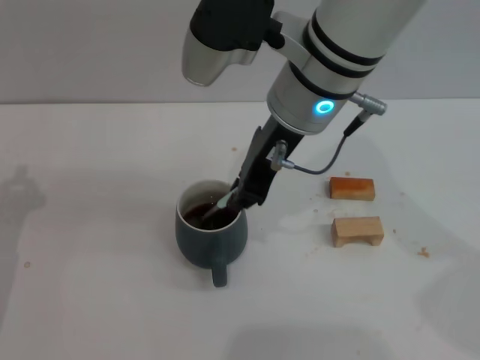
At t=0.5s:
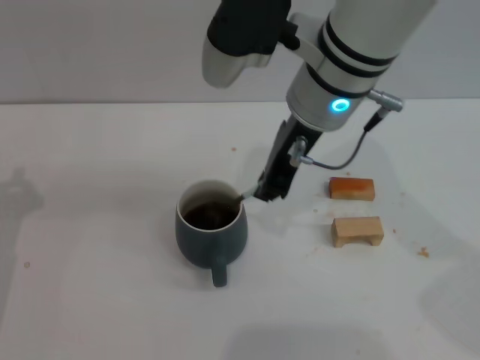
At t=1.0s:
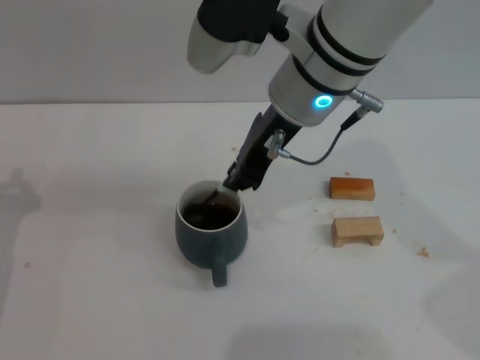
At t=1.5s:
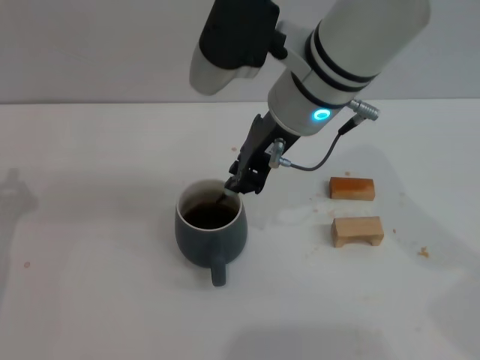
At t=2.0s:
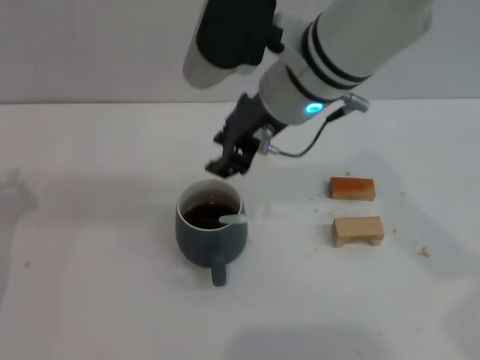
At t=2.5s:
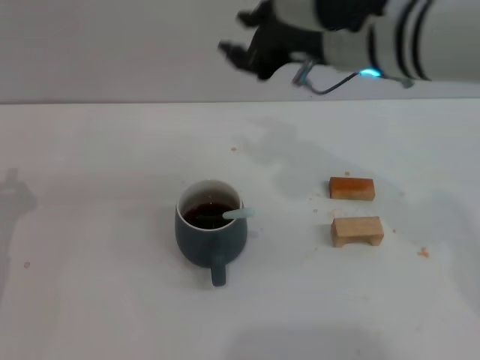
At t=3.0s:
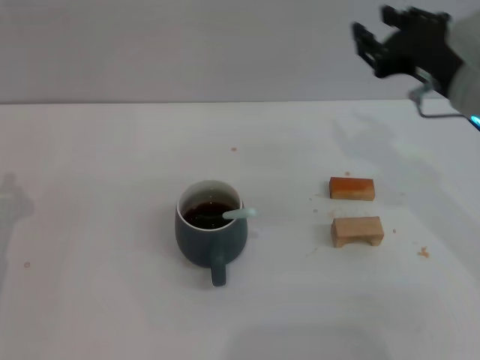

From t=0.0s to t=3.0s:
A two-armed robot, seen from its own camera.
Task of the whole recording: Move the grey cup to the center, lift the blue spoon, stir it three times in the cup, and put the spoon into the cup.
From t=0.0s to t=1.5s: The grippers move only a little.
From t=1.5s to t=3.0s: The right gripper is displaced to the right by roughly 15 cm, and opens up.
